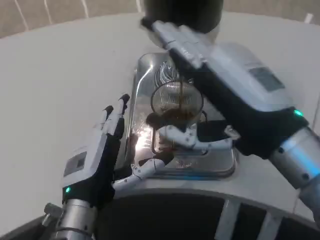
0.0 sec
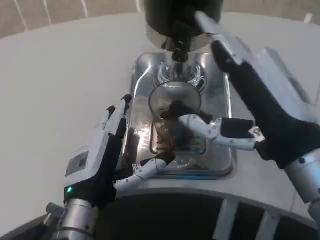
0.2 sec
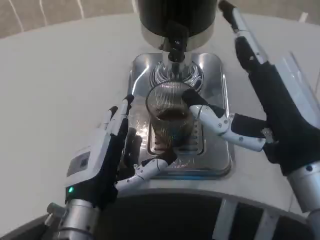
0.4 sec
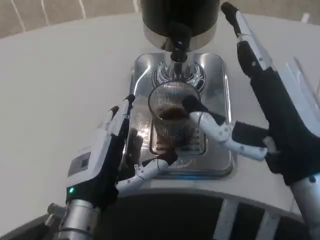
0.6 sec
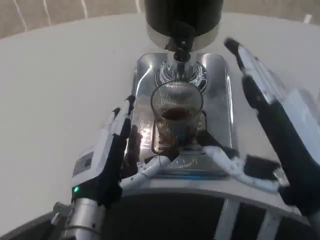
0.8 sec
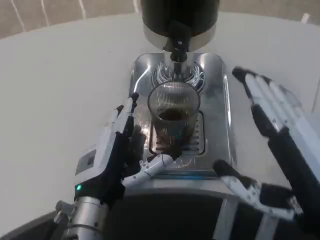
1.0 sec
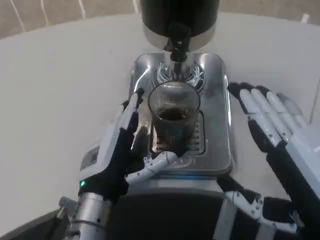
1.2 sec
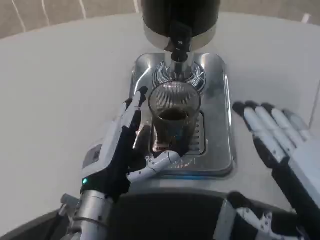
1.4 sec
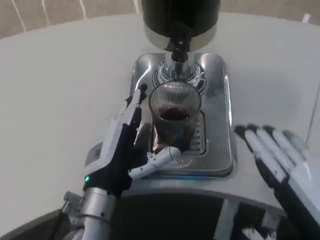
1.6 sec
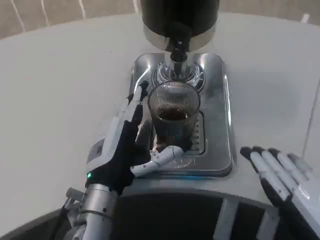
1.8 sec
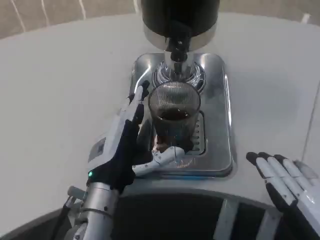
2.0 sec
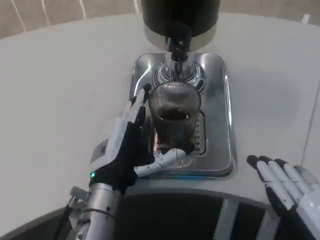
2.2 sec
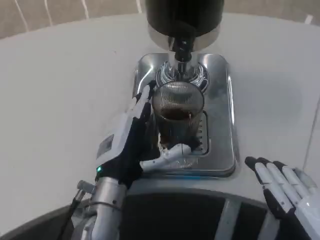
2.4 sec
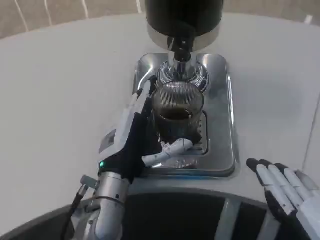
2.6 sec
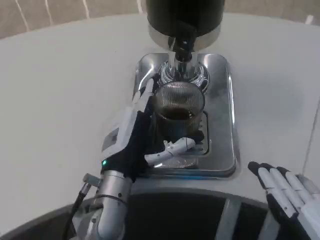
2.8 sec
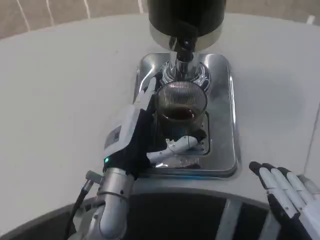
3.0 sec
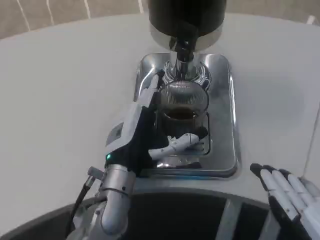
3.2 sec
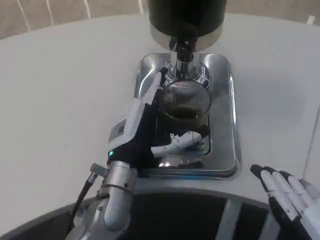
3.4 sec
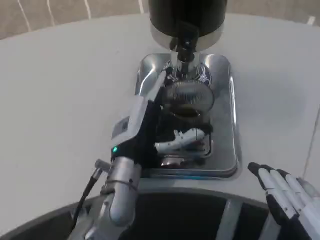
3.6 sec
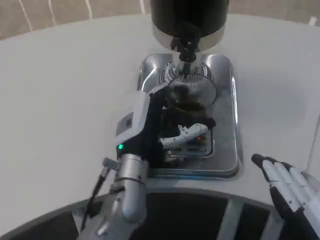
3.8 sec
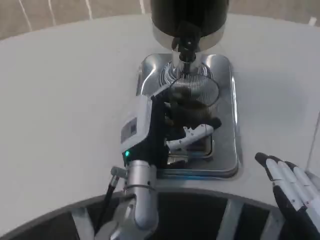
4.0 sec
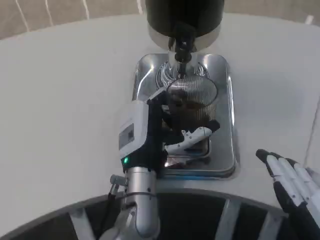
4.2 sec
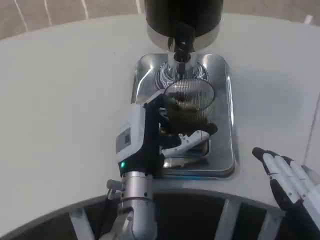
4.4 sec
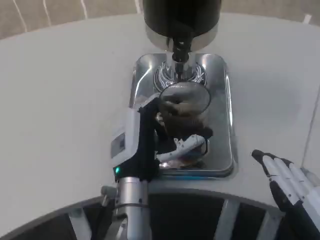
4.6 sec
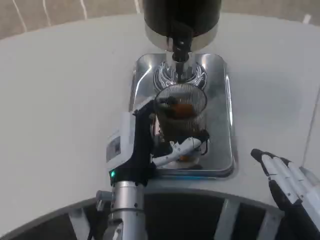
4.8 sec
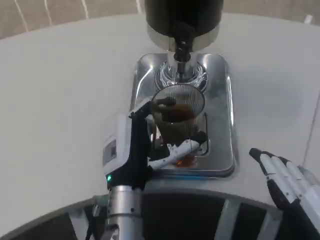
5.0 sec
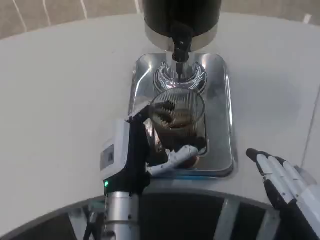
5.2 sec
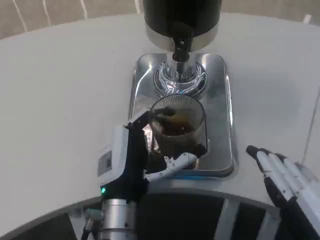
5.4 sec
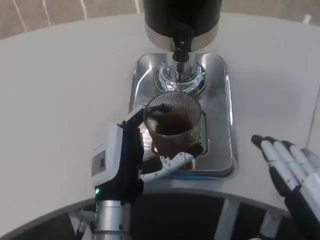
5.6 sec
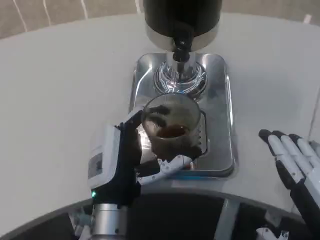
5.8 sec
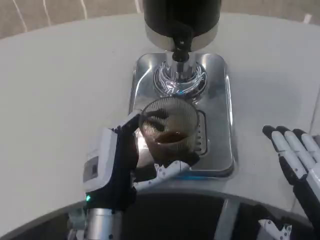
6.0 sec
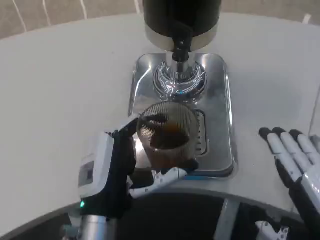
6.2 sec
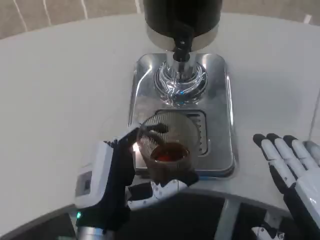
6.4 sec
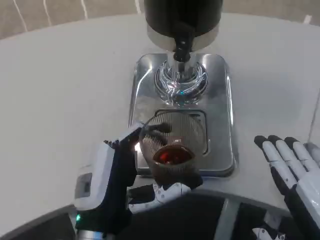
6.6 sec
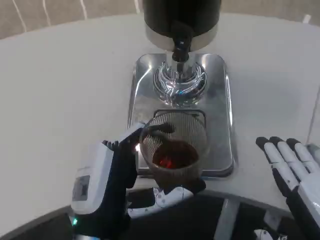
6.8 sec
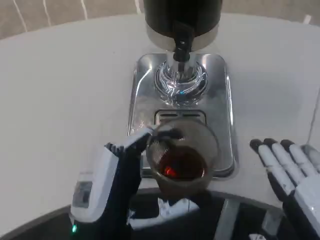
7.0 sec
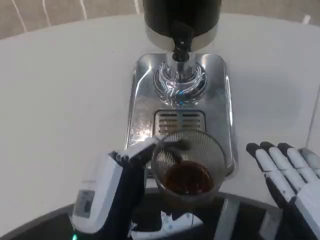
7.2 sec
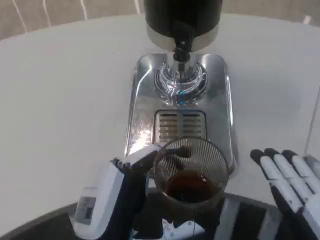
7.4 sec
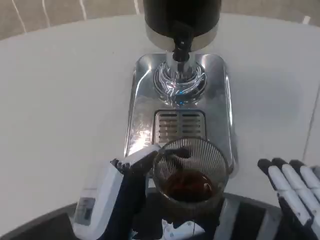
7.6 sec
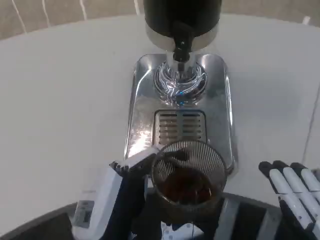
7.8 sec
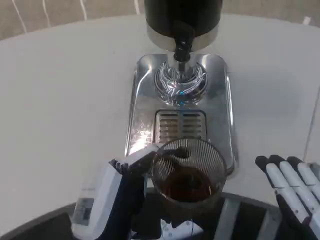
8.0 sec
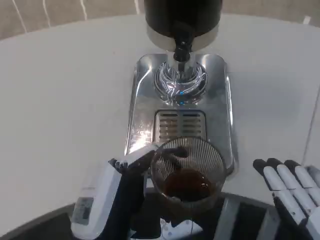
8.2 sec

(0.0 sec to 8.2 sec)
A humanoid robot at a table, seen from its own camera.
Task of the whole recording: Grasp the cup under the faucet to collect the drink, then remove the cup.
0.0 sec - 1.6 sec: The right hand heads downward, backward and to the right, covering some 15 cm.
3.2 sec - 5.0 sec: The hands make only small movements.
5.0 sec - 6.6 sec: The left hand travels backward by some 10 cm.
6.6 sec - 8.2 sec: The hands move only a little.

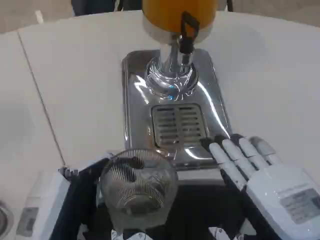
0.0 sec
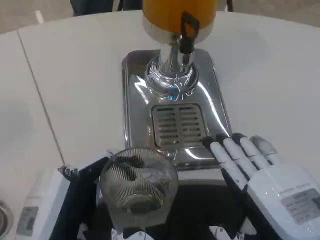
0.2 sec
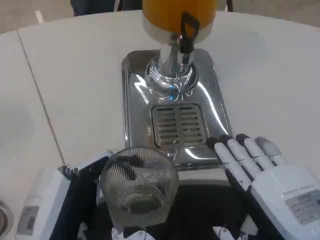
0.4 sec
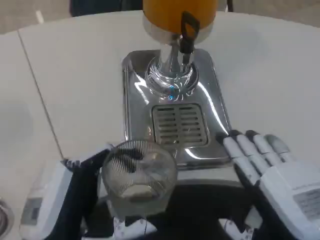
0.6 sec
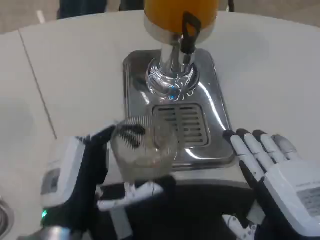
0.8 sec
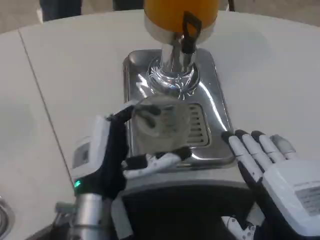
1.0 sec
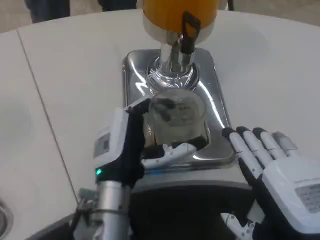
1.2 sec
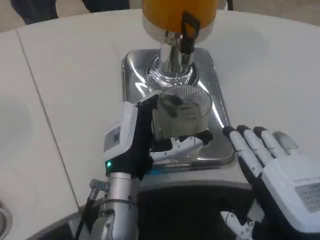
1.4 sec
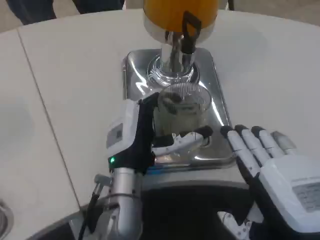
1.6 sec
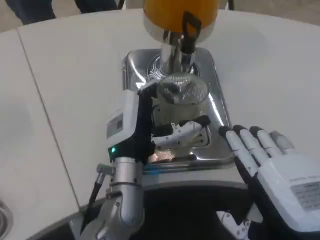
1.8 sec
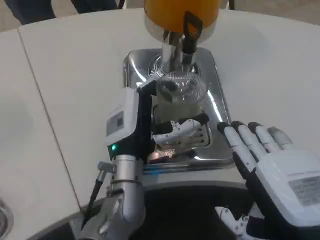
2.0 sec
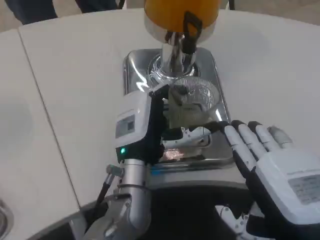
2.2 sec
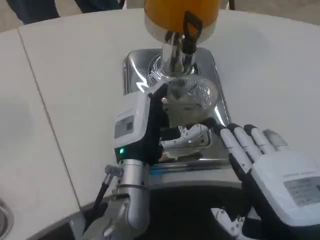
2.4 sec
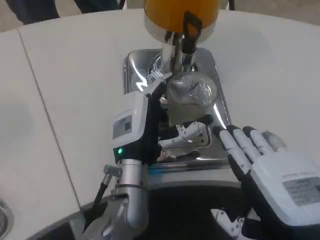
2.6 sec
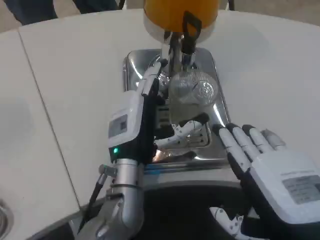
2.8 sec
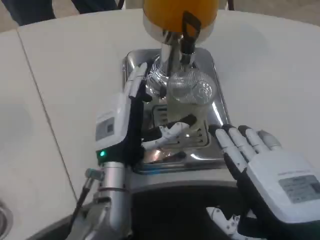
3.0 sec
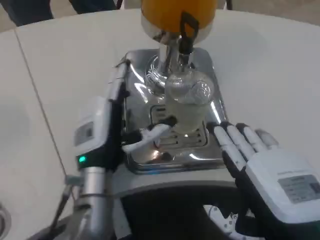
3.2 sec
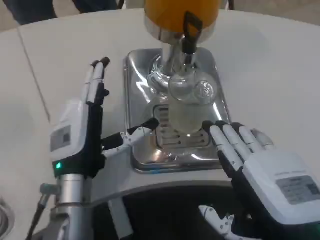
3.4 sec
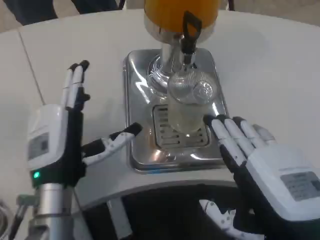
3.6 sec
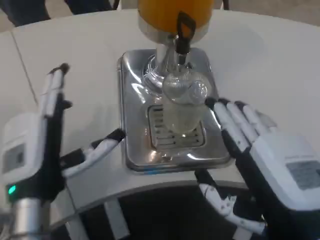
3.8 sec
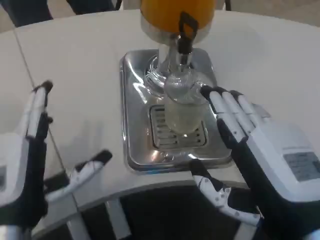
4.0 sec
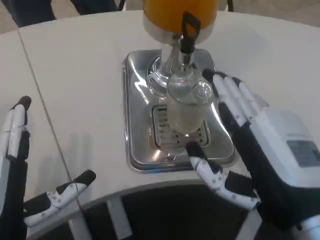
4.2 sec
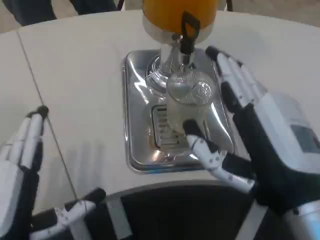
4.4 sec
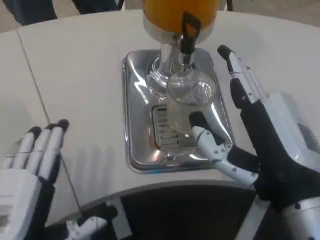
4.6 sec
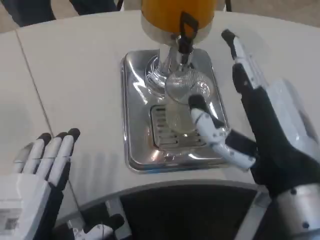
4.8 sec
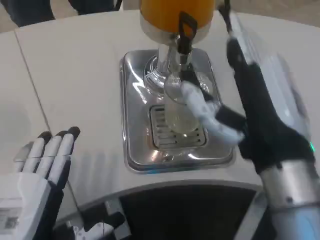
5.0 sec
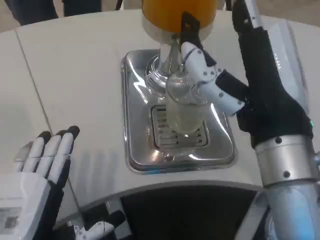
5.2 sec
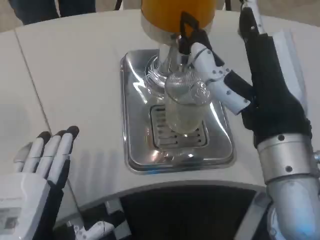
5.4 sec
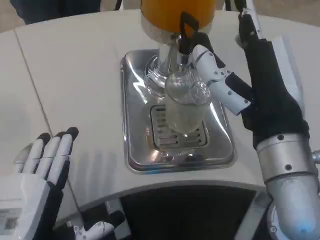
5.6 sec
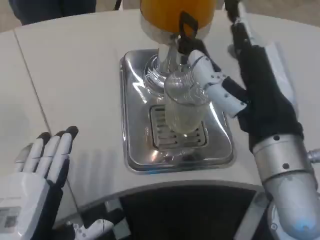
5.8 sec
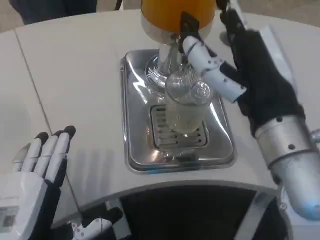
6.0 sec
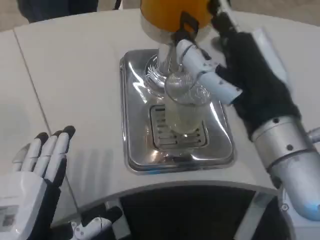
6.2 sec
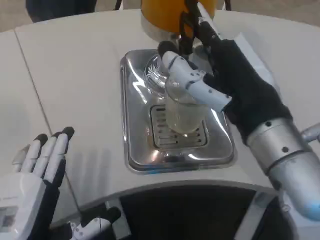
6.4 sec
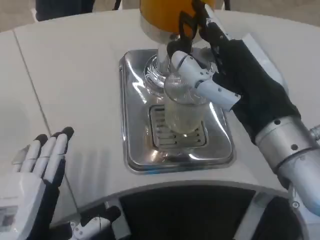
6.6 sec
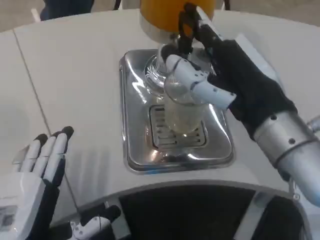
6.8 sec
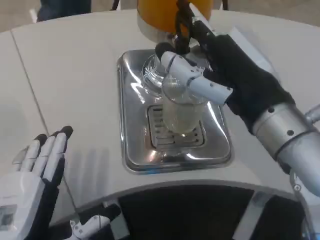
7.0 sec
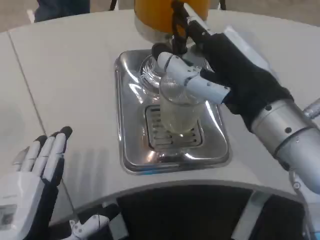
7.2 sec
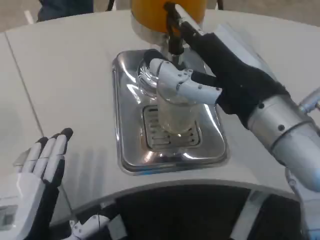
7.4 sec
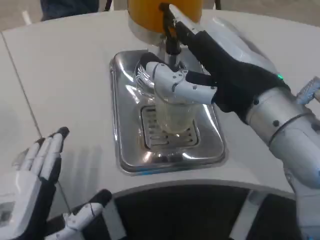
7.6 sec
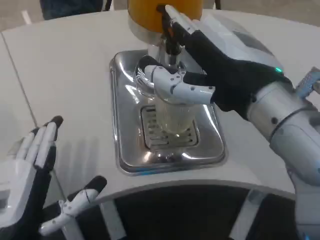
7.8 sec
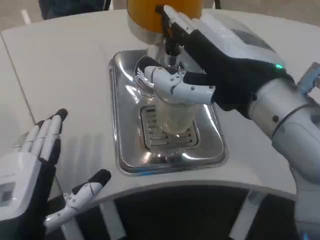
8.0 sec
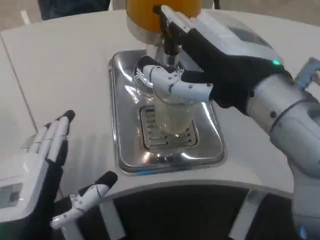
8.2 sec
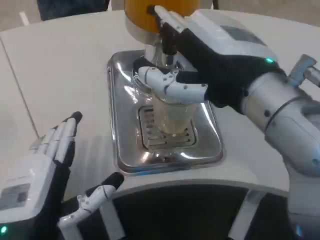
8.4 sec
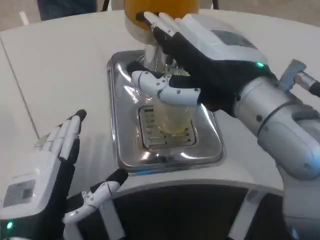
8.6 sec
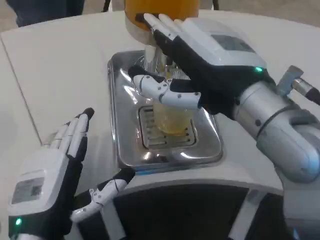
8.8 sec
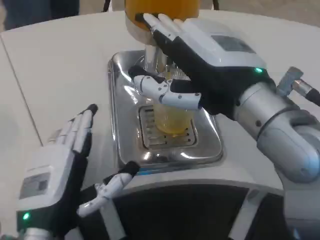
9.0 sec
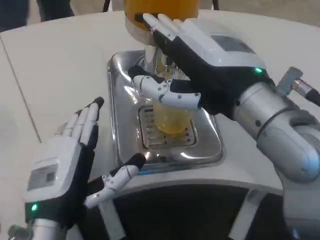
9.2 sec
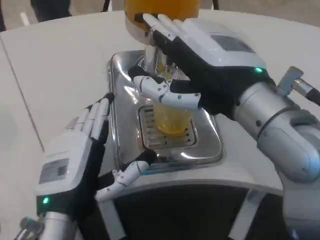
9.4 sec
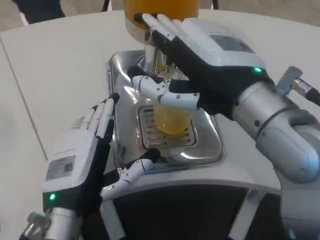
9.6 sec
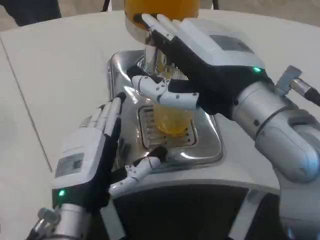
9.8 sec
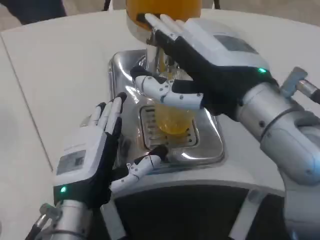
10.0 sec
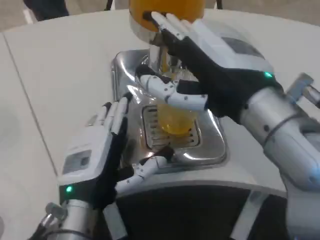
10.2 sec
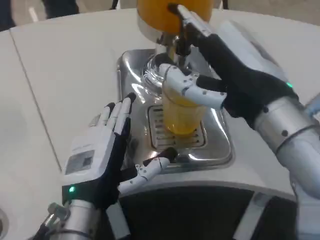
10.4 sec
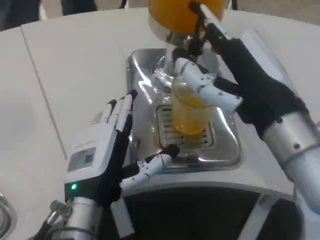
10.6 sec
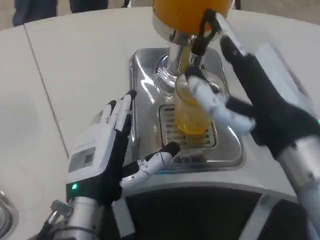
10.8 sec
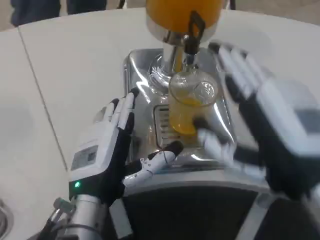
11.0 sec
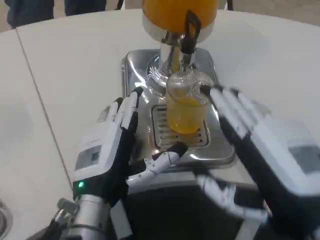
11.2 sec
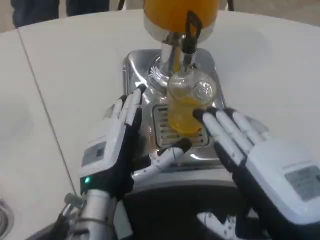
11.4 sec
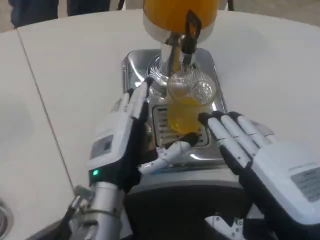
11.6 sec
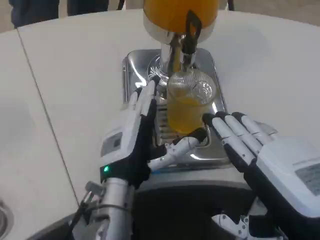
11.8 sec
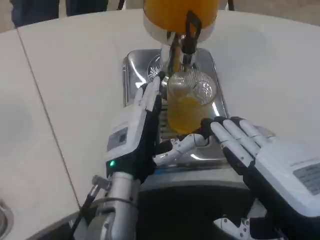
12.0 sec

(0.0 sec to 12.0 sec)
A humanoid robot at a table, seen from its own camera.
Task of the whole recording: Grasp the cup under the faucet to collect the drink, then remove the cup.
0.0 sec - 1.6 sec: The left hand is displaced forward and to the right by some 20 cm.
1.6 sec - 3.0 sec: The hands stay close to where they were, moving slightly.
3.0 sec - 4.4 sec: The left hand moves backward and to the left, roughly 20 cm.
4.4 sec - 6.0 sec: The right hand moves upward and forward, about 10 cm.
7.6 sec - 9.0 sec: The left hand changes place by approximately 5 cm.
9.0 sec - 10.4 sec: The left hand changes place by roughly 5 cm.
10.4 sec - 12.0 sec: The left hand heads forward and to the right, covering about 5 cm. Meanwhile the right hand shifts some 15 cm backward, downward and to the right.

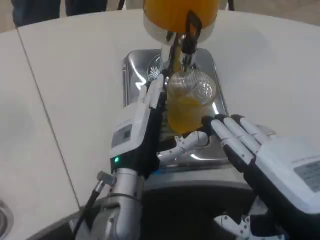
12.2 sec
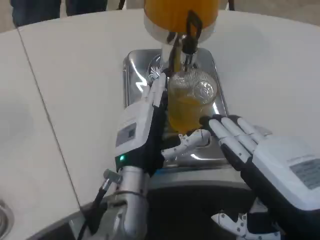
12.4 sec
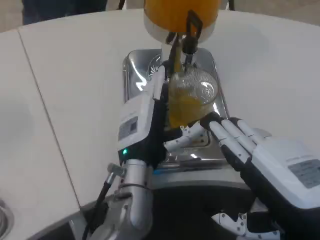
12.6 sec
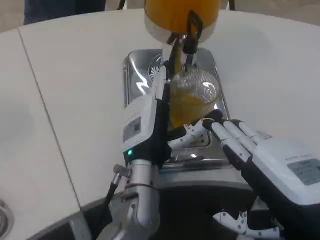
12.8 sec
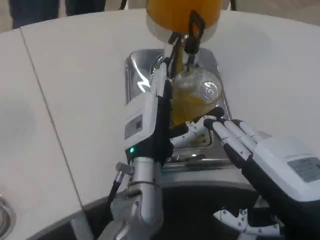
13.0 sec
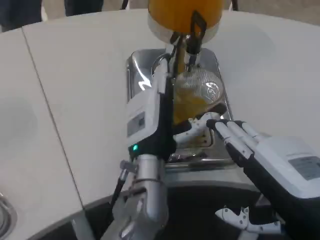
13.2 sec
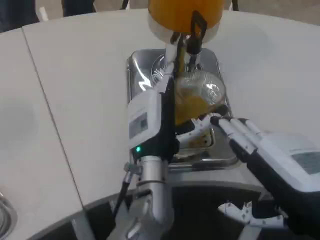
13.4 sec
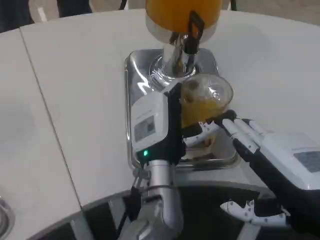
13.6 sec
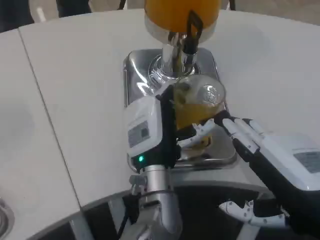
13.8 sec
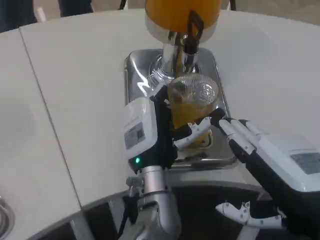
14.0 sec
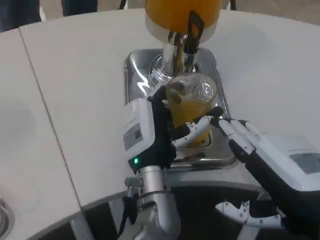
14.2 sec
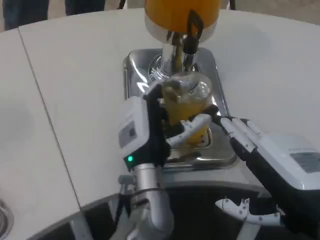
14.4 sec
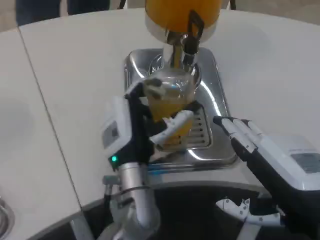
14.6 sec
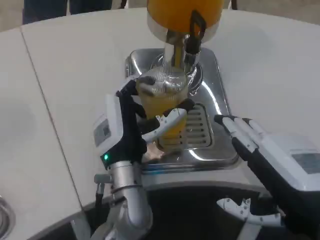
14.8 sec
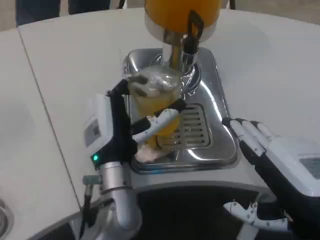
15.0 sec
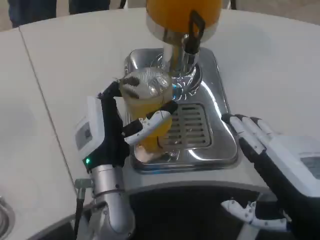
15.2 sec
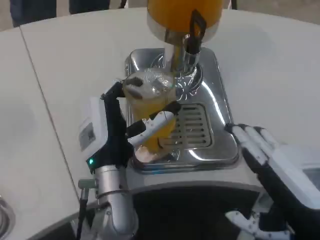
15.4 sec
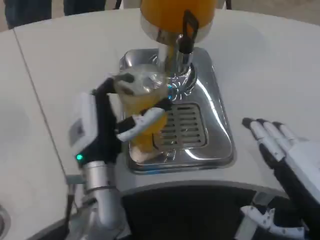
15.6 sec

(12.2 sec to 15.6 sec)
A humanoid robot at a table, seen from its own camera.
Task of the whole recording: Grasp the cup under the faucet to collect the drink, then remove the cup.
12.2 sec - 13.8 sec: The left hand is displaced to the right by some 5 cm.
13.8 sec - 15.6 sec: The left hand travels to the left by some 10 cm.
